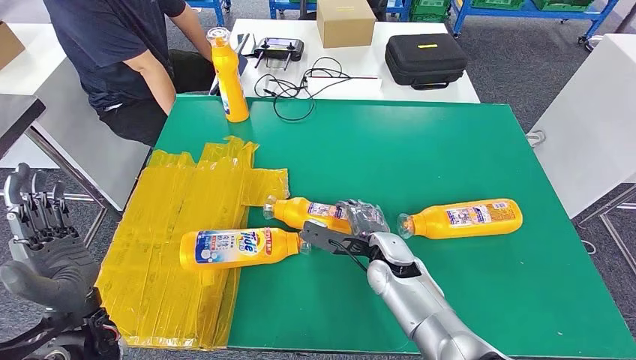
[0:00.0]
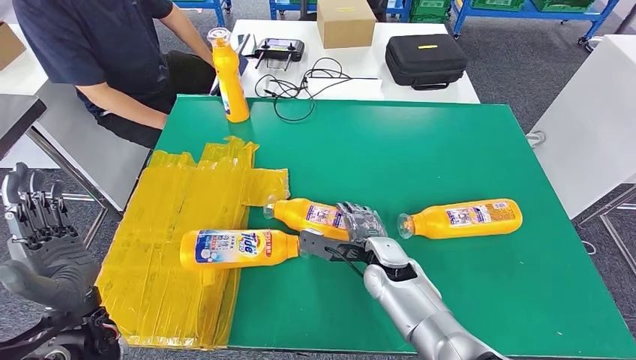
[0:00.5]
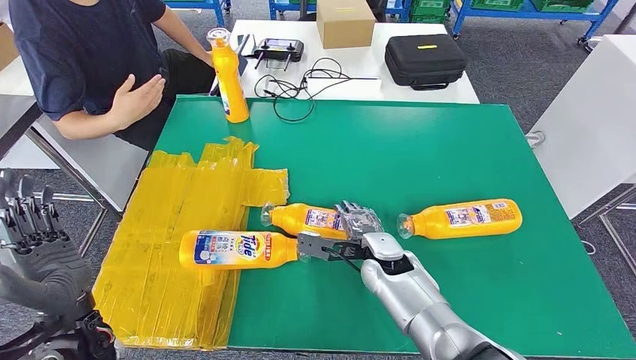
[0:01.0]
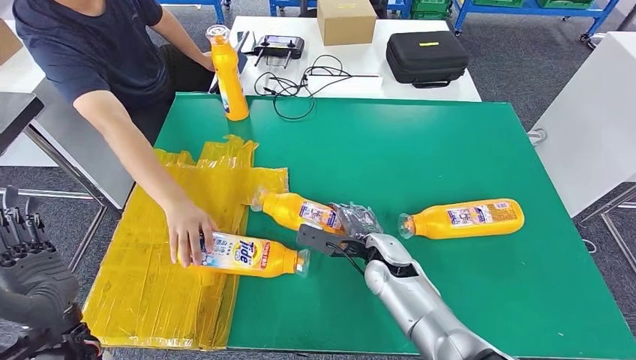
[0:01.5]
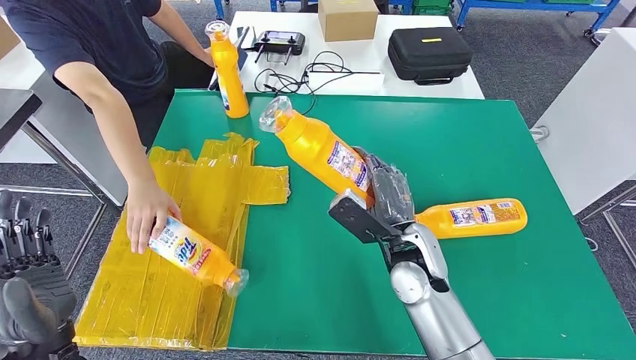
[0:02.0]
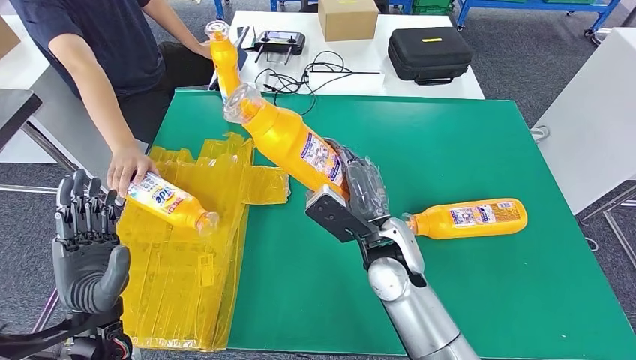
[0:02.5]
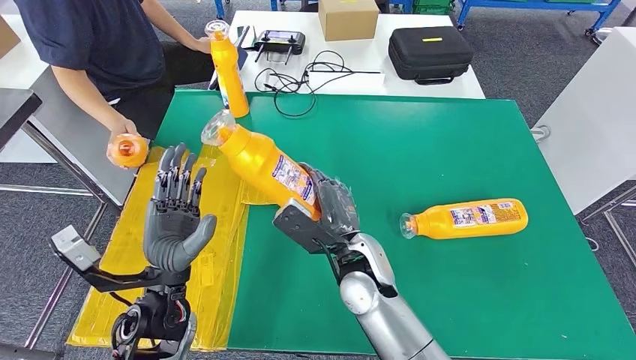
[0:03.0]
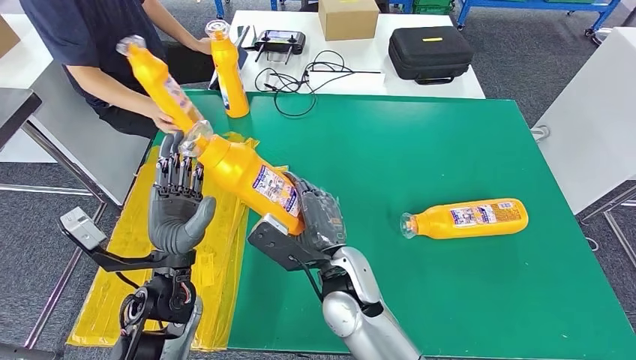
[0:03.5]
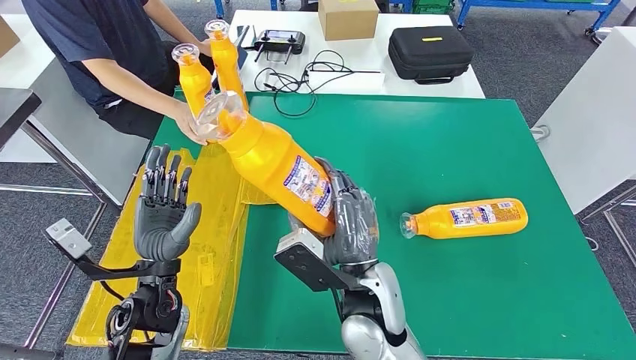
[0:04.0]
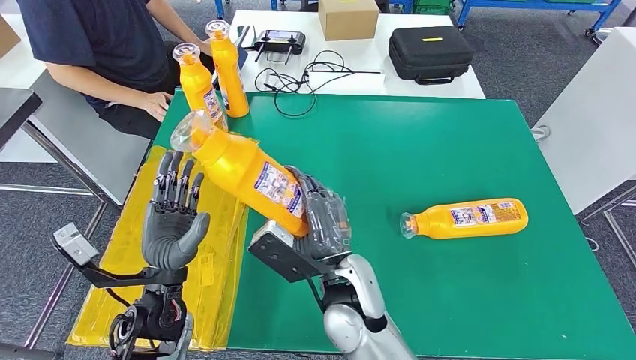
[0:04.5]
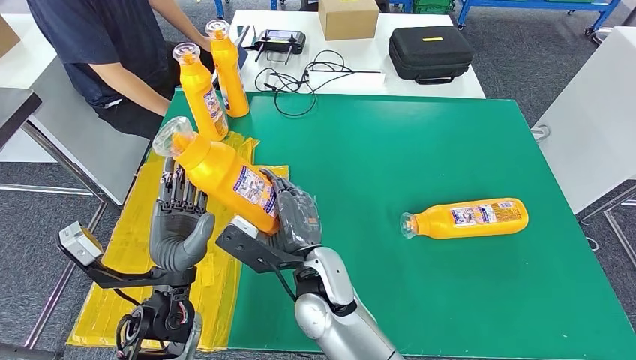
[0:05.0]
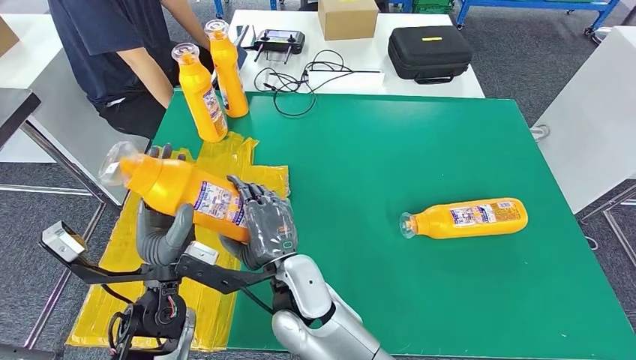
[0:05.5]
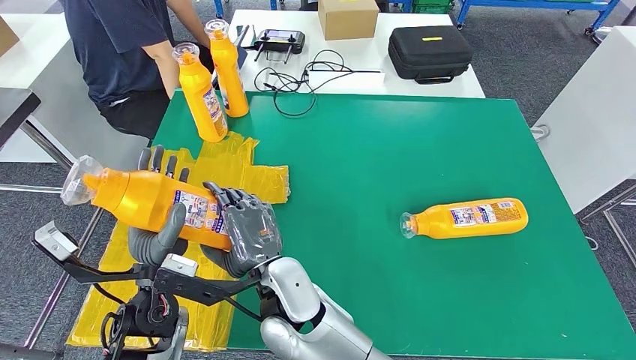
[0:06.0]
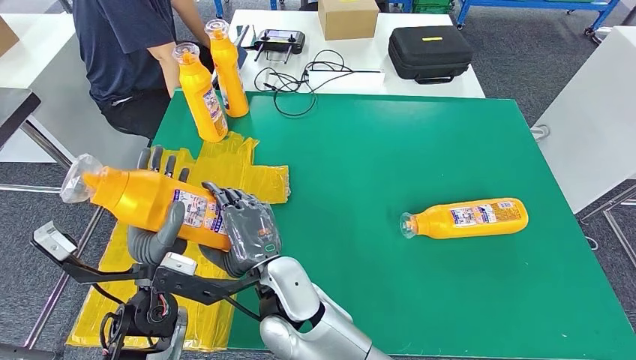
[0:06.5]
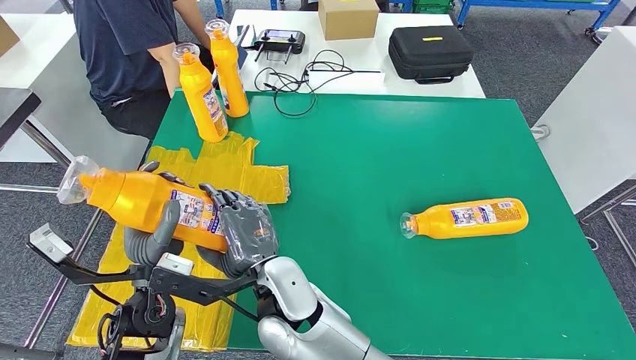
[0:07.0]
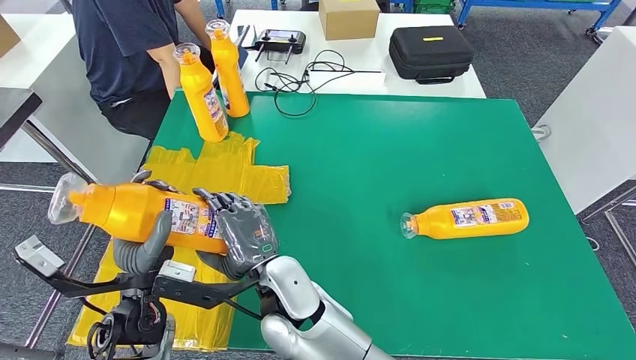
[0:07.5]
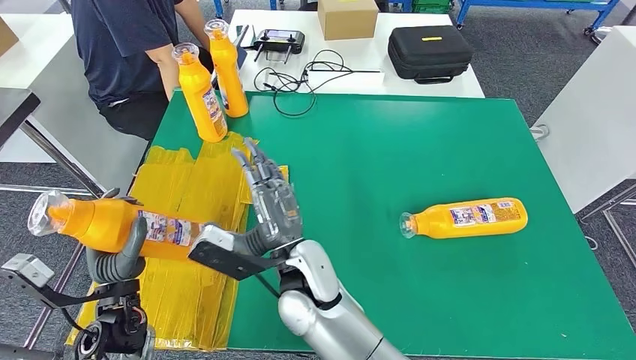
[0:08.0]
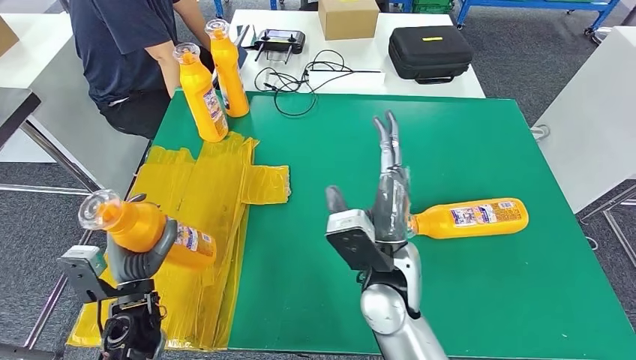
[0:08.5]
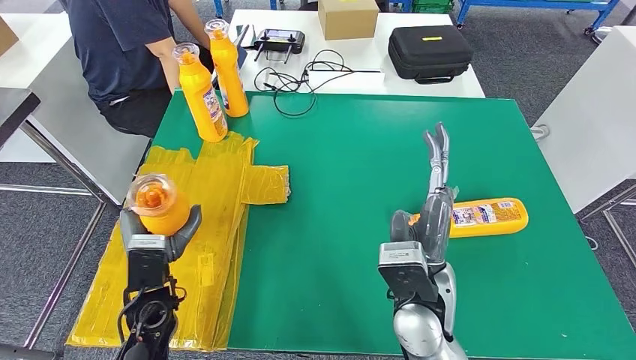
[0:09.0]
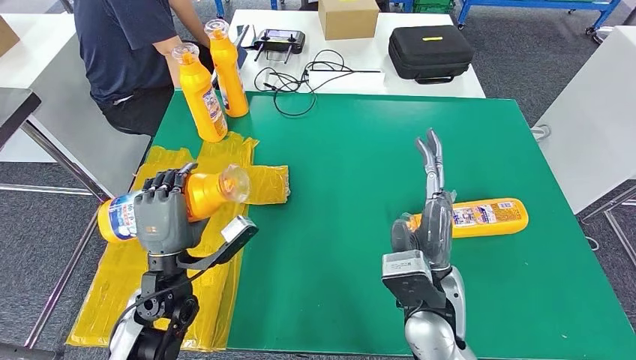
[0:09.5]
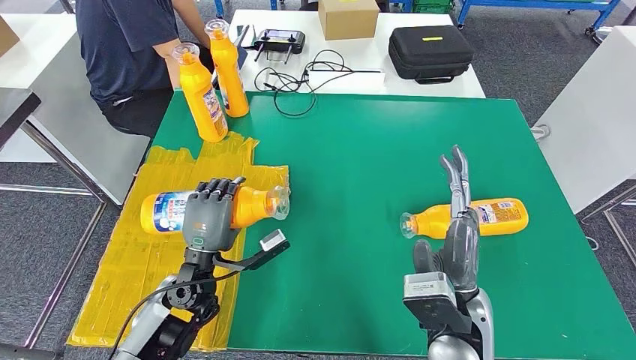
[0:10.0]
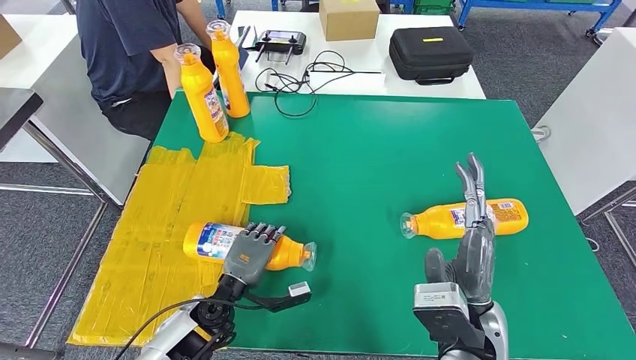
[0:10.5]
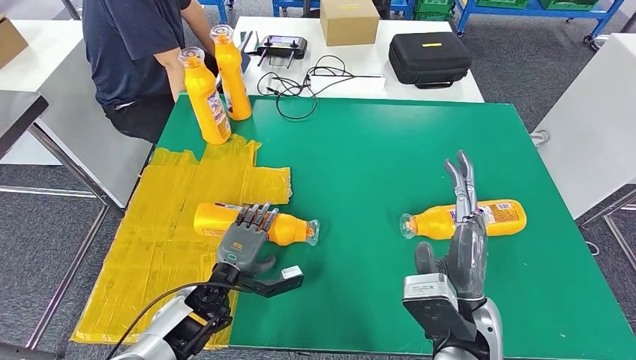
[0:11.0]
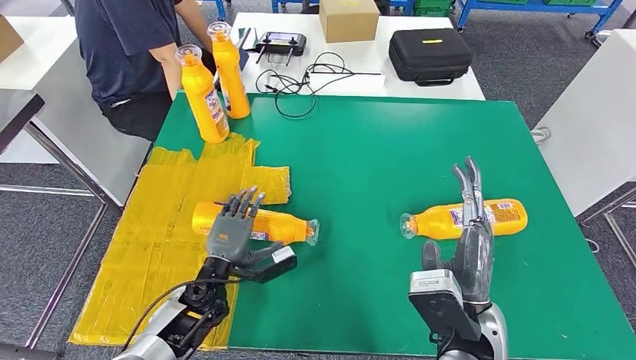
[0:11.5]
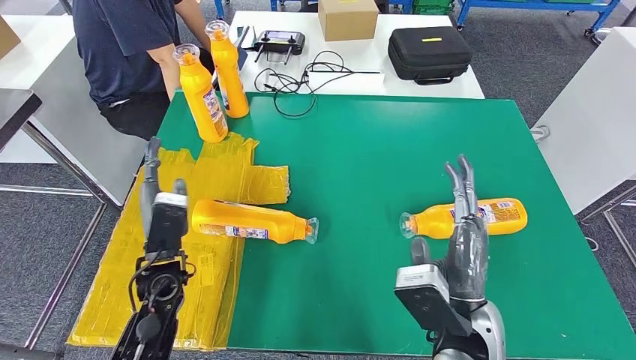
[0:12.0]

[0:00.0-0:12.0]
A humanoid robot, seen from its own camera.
Step, 0:00.0 to 0:03.5: Pick up the bottle from the table.
Step, 0:04.5 to 0:10.5: Flip the bottle to face forward.
0:06.0 to 0:08.0: The left hand travels to the left by about 5 cm.
0:10.0 to 0:12.0: The left hand goes downward and returns, roughly 5 cm each way.

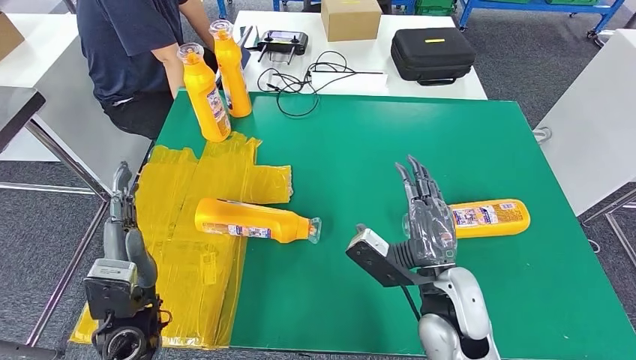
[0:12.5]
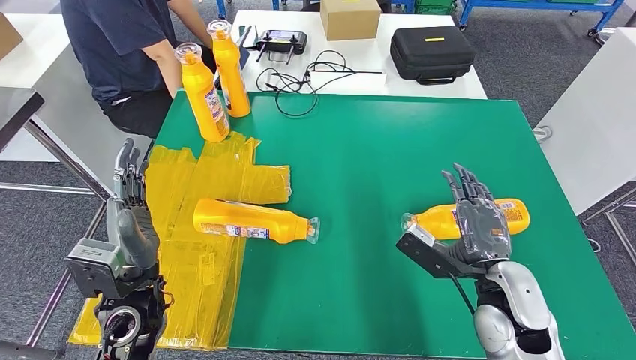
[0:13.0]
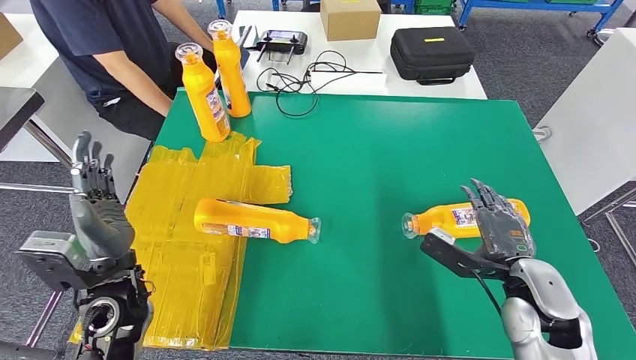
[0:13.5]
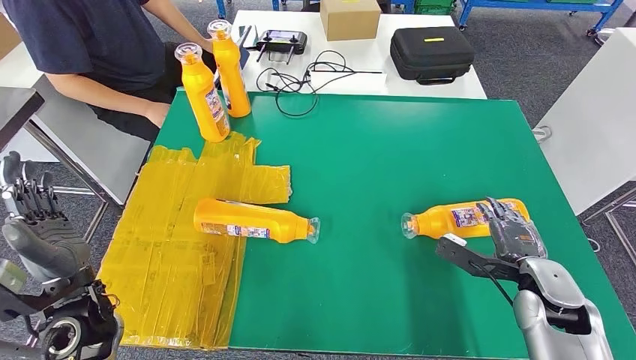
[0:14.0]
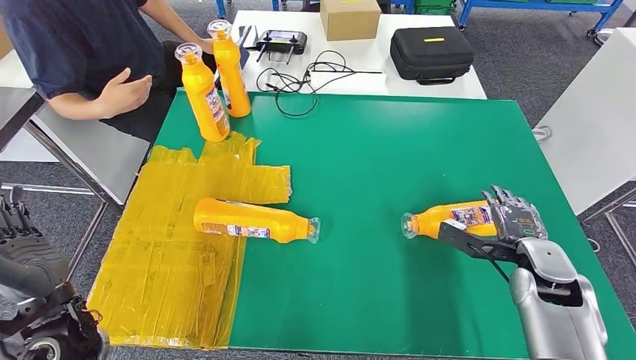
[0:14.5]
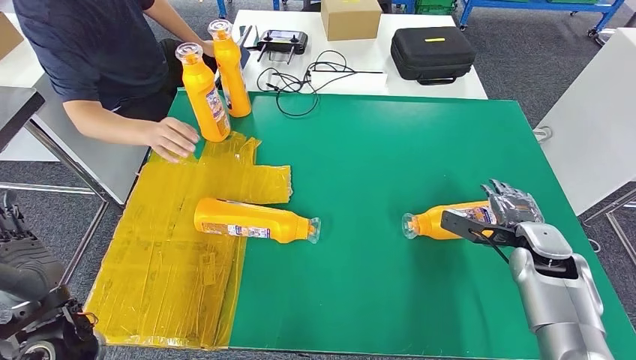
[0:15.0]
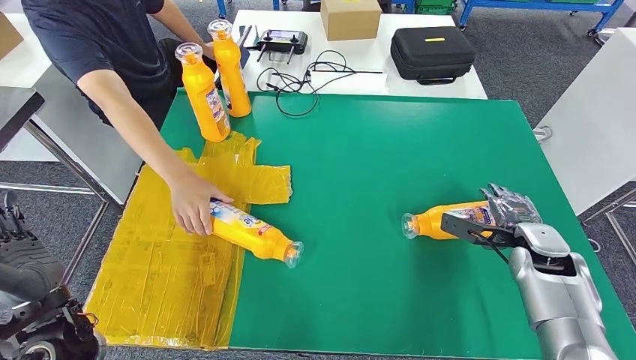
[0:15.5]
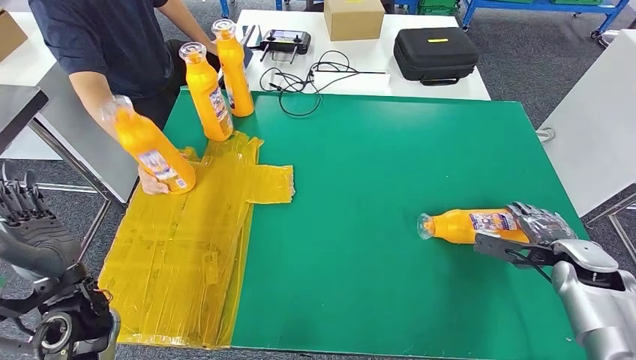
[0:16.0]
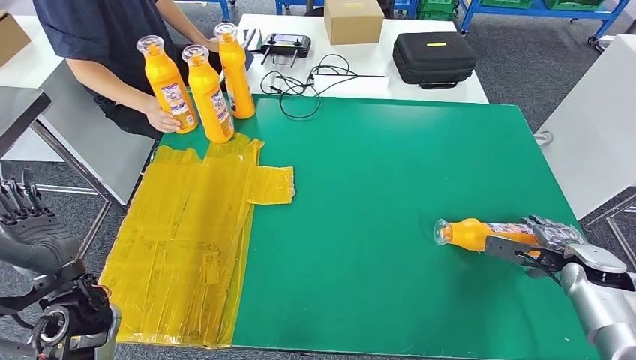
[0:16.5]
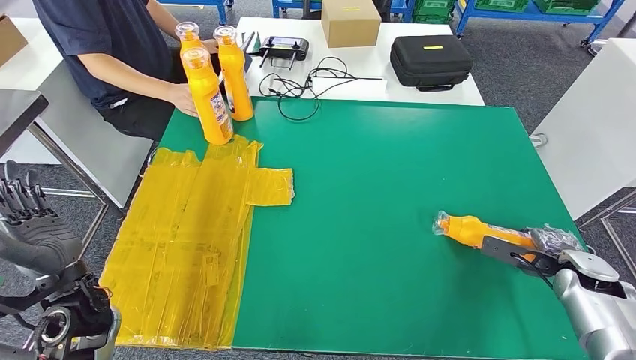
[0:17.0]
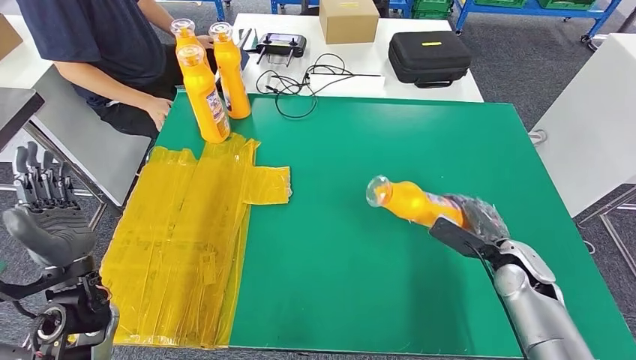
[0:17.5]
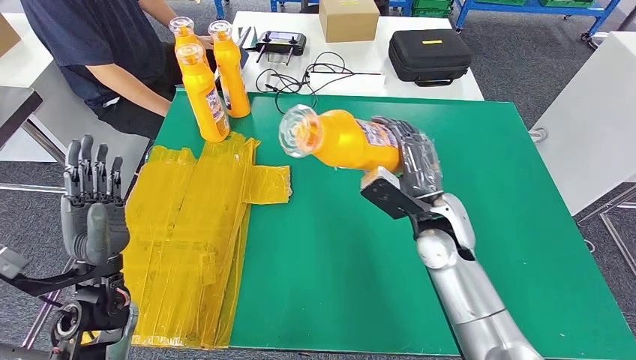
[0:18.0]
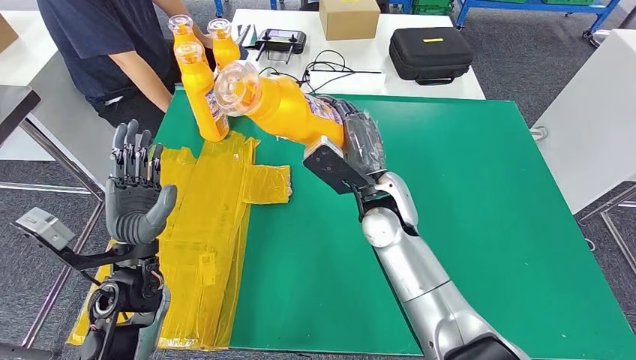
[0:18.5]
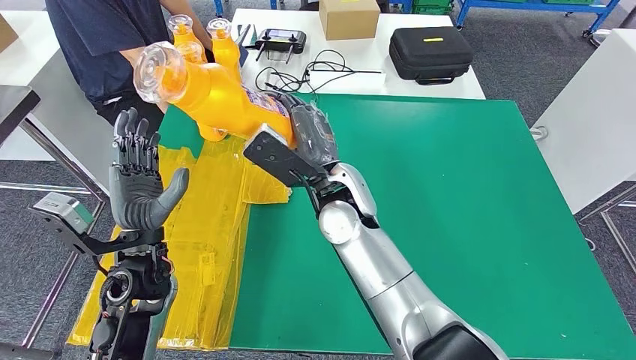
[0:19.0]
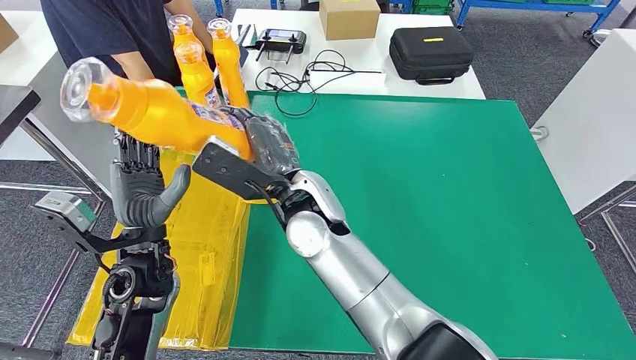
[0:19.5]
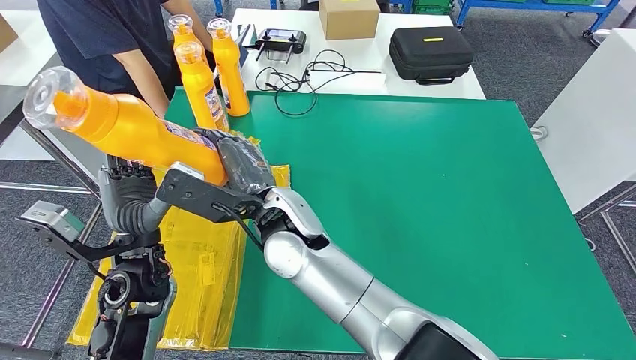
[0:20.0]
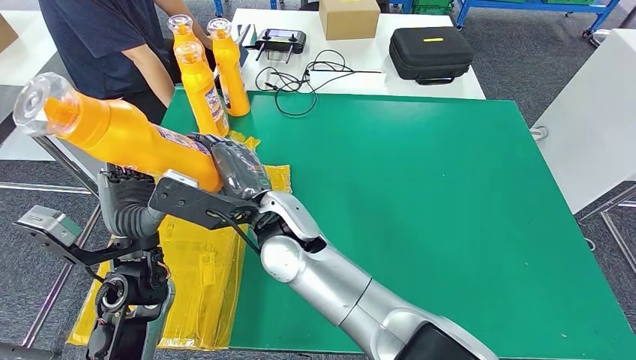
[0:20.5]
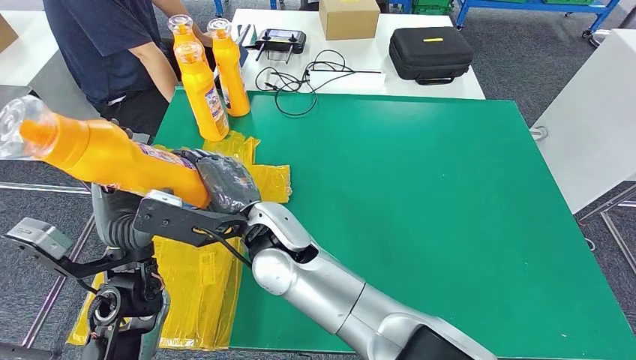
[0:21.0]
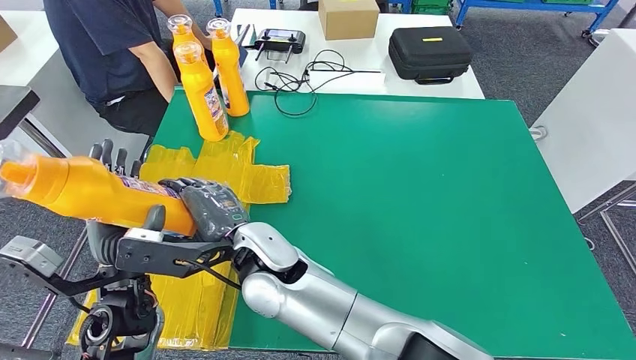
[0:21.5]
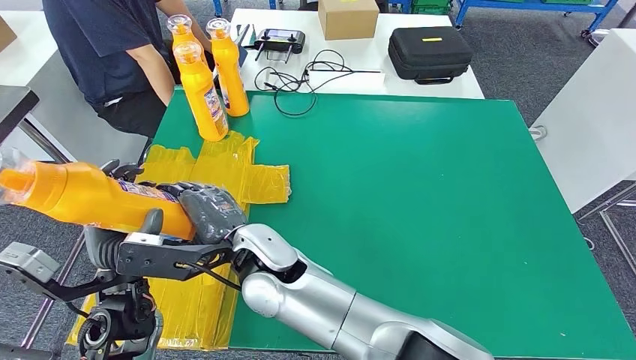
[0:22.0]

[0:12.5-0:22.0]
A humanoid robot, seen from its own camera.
Step, 0:12.5 to 0:19.5: Pick up the bottle from the table.
